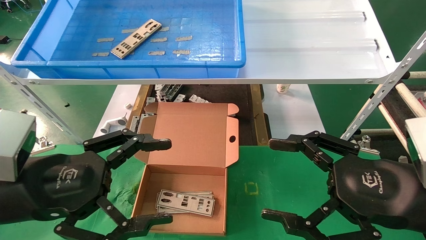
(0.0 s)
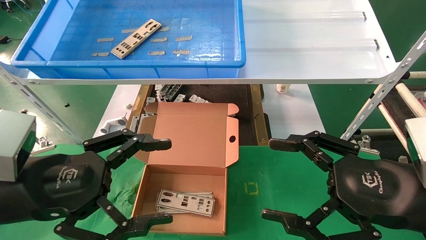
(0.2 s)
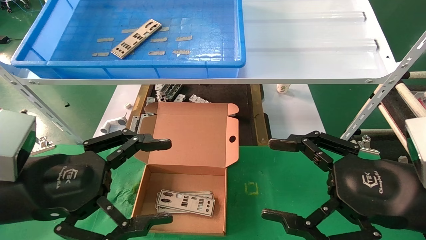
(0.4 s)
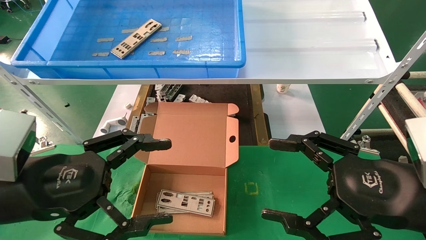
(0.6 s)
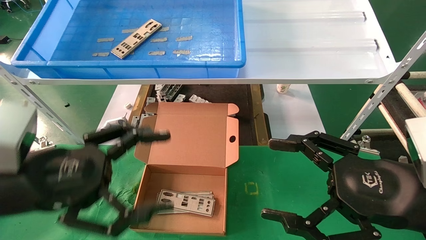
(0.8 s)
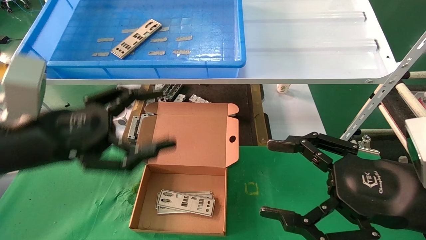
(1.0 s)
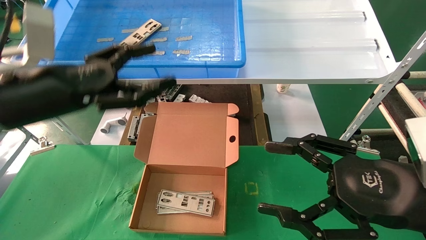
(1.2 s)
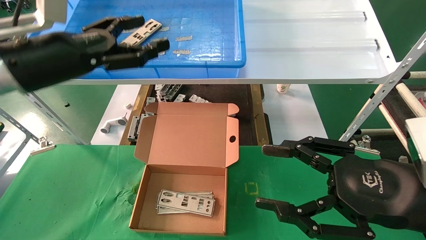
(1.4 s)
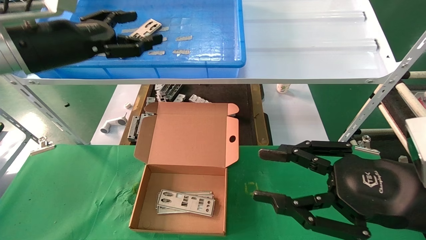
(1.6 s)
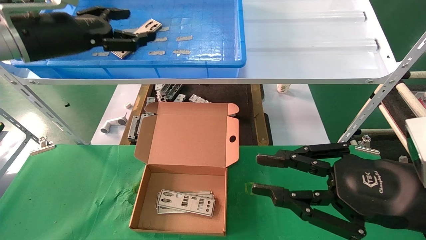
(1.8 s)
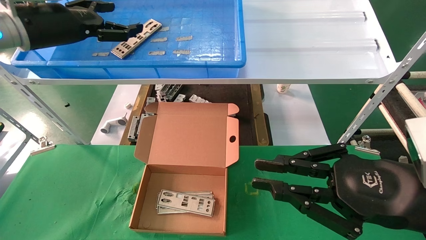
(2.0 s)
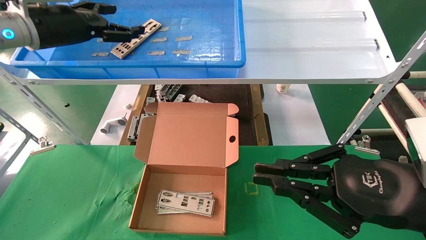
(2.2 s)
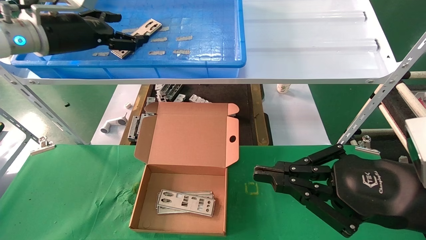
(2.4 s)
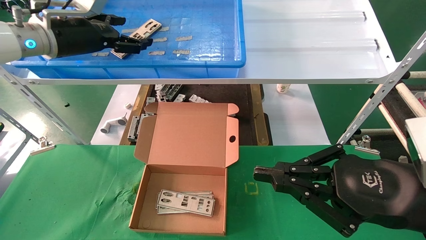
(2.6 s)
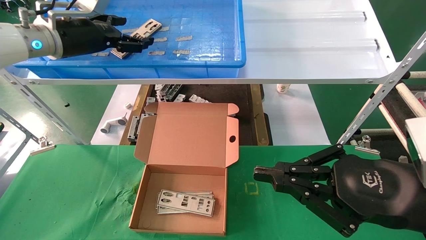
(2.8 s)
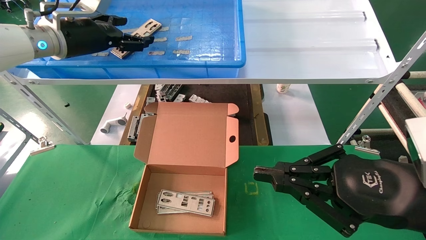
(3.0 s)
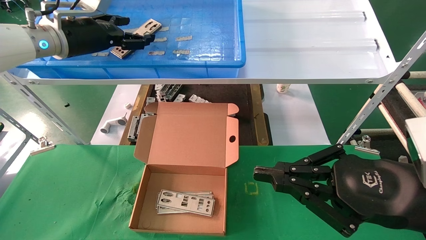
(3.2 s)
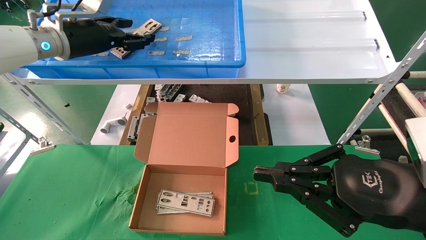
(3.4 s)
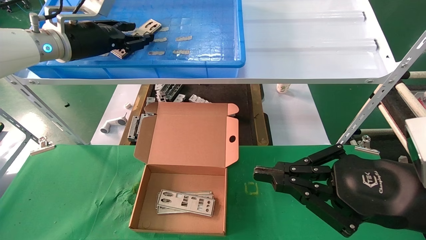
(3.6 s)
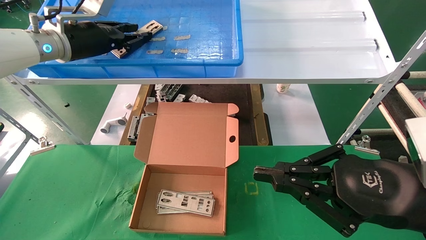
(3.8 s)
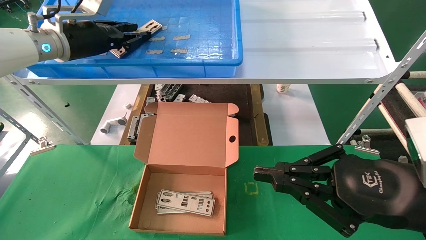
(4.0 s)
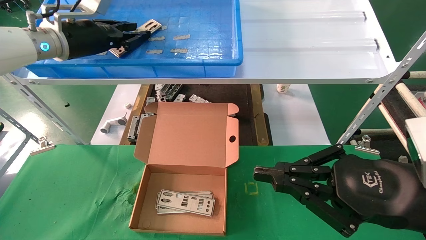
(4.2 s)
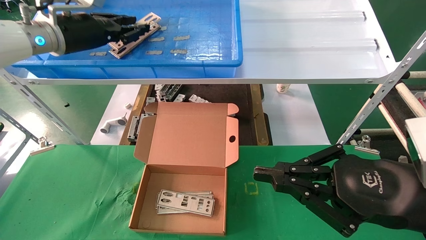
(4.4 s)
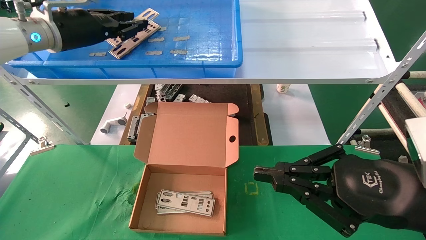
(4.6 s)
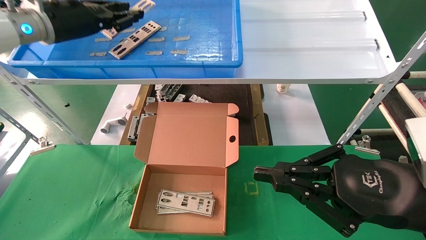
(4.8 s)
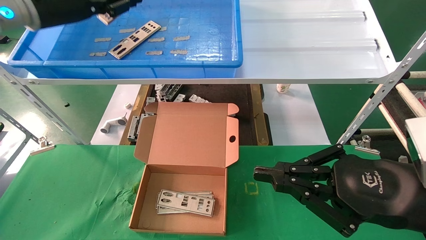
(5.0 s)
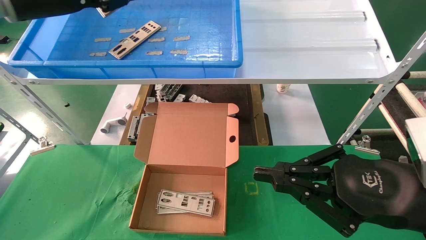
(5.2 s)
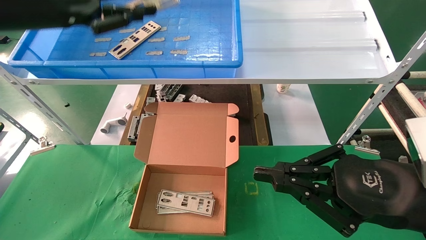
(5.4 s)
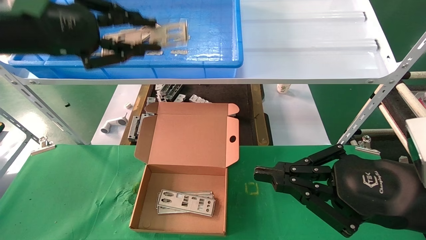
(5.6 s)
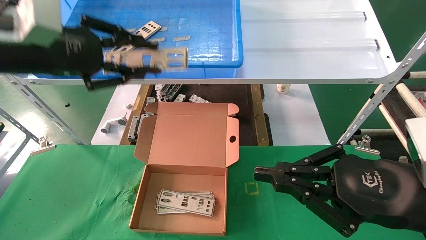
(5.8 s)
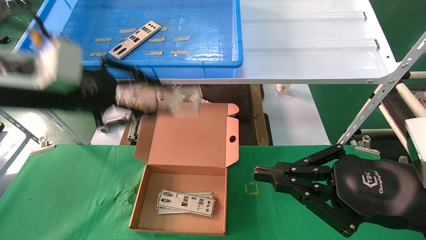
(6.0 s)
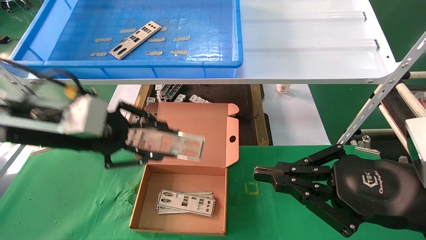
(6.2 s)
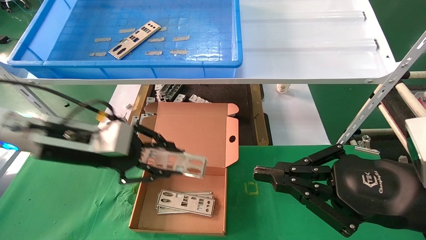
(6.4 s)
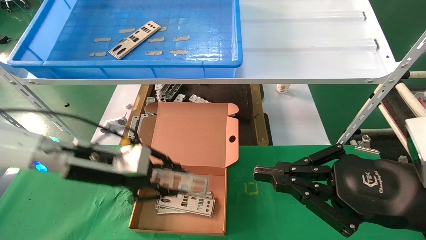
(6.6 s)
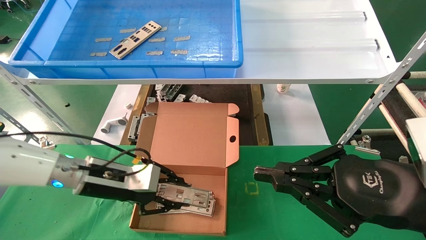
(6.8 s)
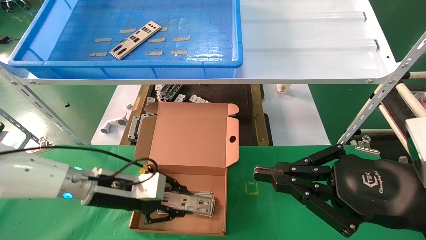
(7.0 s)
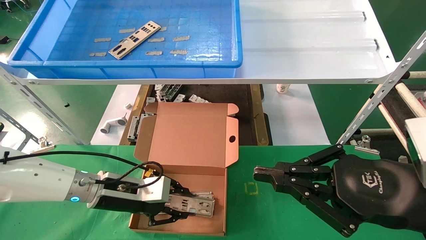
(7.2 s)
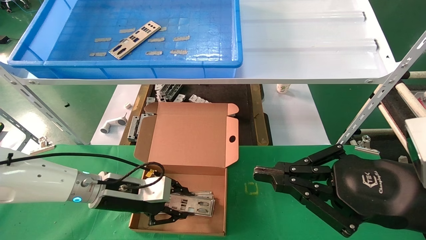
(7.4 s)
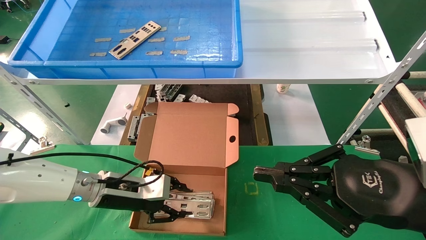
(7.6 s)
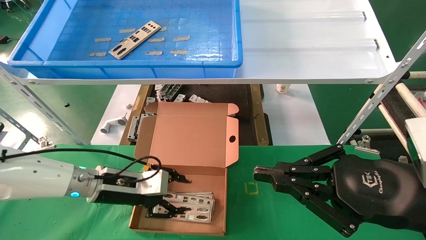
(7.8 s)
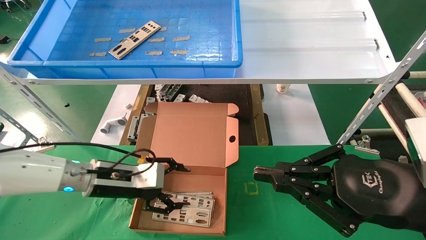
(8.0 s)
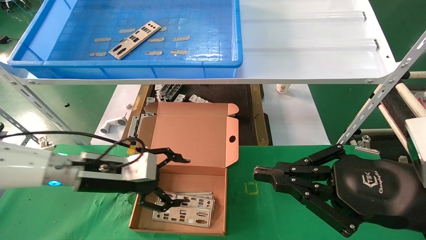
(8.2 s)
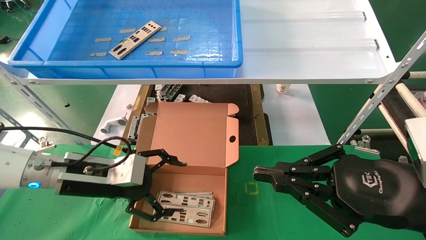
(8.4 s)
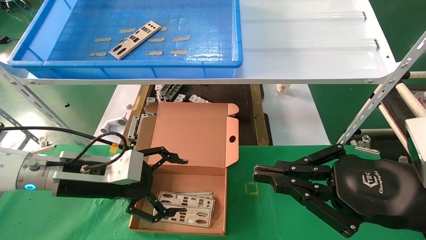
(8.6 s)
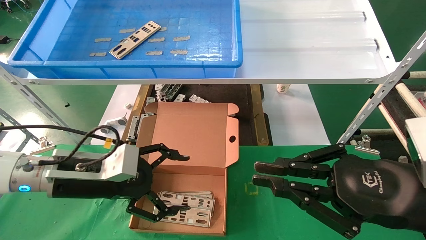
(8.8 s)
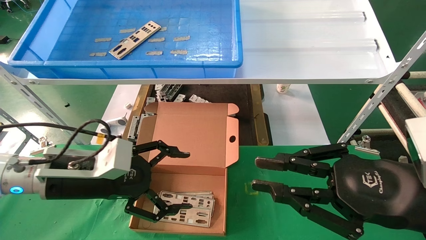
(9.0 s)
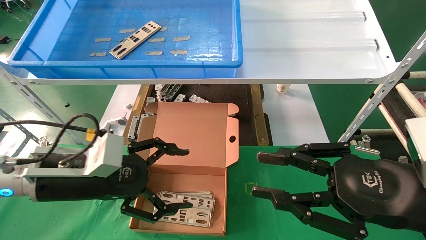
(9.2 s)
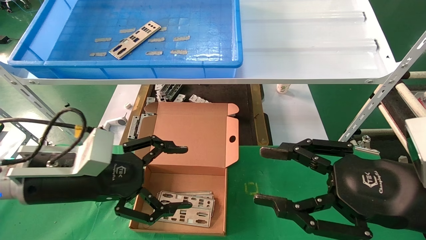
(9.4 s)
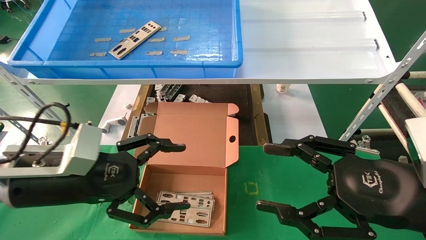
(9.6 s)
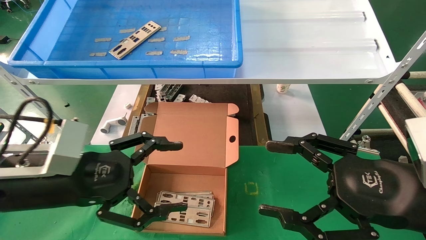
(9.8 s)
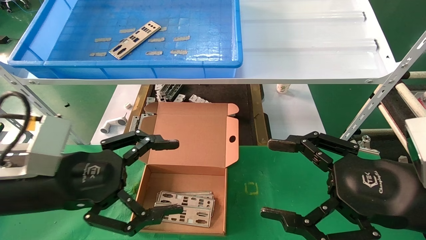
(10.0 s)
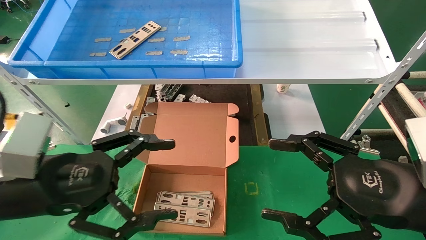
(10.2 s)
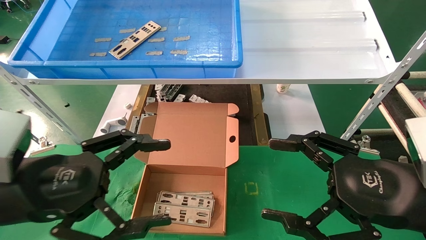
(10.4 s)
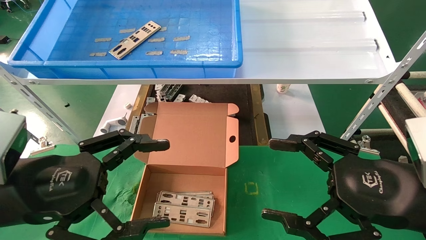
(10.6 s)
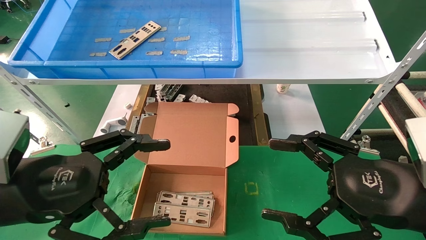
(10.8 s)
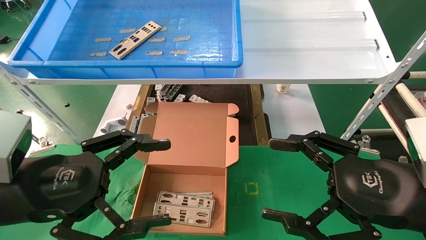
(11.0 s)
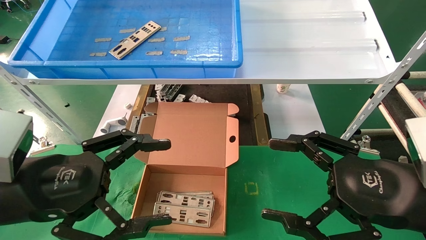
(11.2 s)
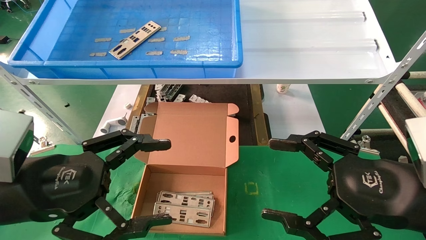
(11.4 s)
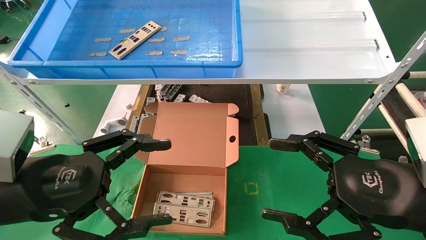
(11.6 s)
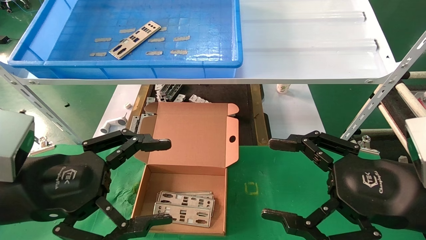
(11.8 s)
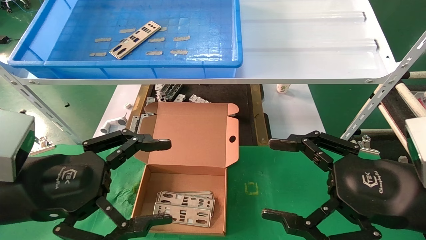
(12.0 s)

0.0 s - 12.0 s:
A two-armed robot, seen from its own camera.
Task of the whole recording: pick up the parts on the tray and put them in the cardboard box.
Step, 1.2 s - 4.4 s: Pick up the IO bracket from the container box.
Step, 4.6 s - 7.6 s: Place the IO bracket into the ingredient slot.
0.0 s - 1.6 s: The right gripper closes up, while the left gripper travels forward and upward by some 20 cm.
1.6 s - 3.0 s: The right gripper closes its fingers. Meanwhile the left gripper is displaced forward by about 10 cm.
3.0 s - 4.4 s: The left gripper closes its fingers.
4.4 s - 6.0 s: The left gripper travels backward and downward by approximately 15 cm.
6.0 s - 7.6 s: The left gripper goes about 25 cm downward.
7.6 s - 9.0 s: The left gripper shifts about 10 cm backward and upward, and opens up.
9.0 s - 10.4 s: The right gripper opens up; the left gripper is displaced backward by about 10 cm.
10.4 s - 12.0 s: Both grippers stay about where they are.

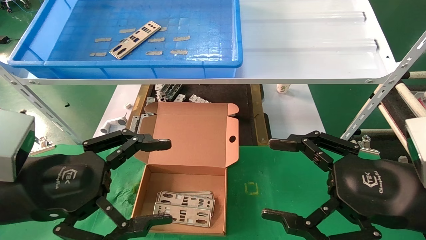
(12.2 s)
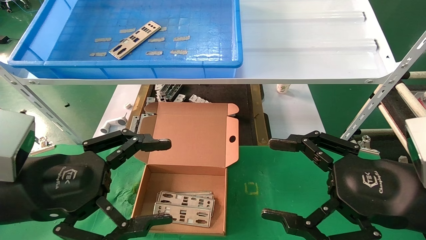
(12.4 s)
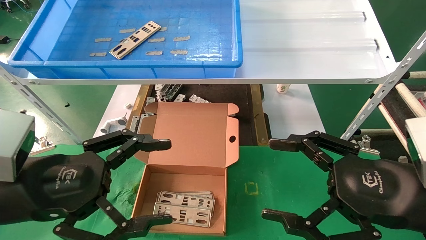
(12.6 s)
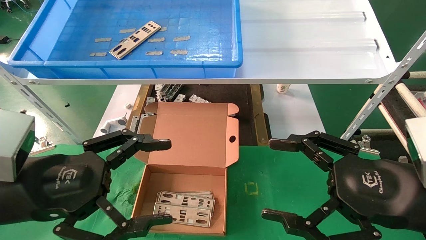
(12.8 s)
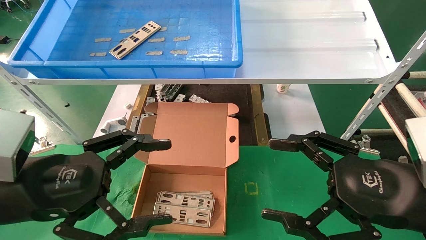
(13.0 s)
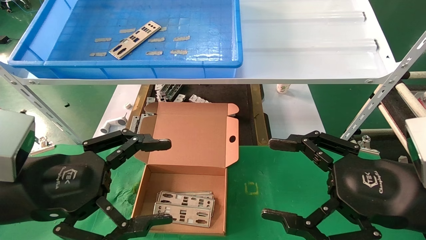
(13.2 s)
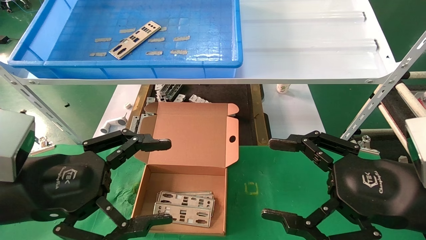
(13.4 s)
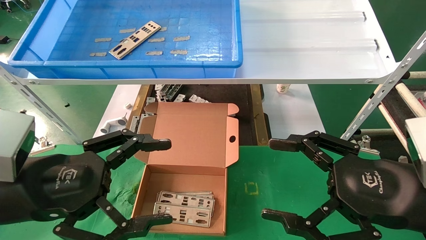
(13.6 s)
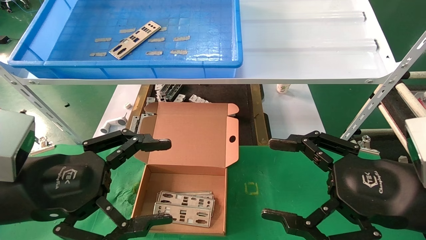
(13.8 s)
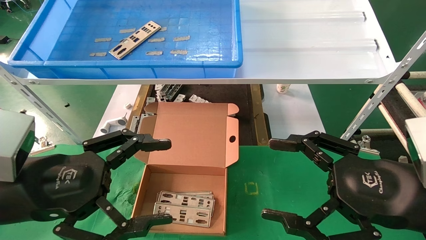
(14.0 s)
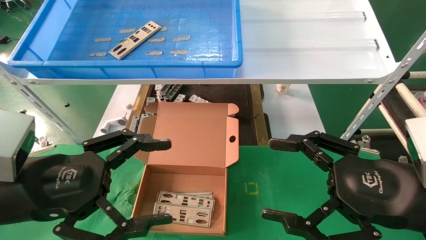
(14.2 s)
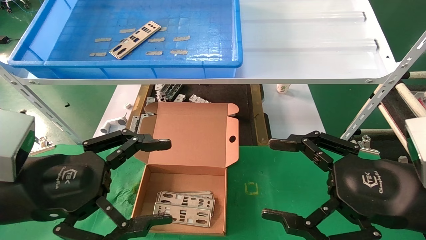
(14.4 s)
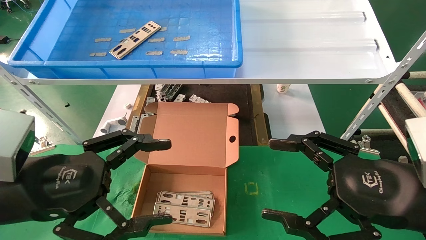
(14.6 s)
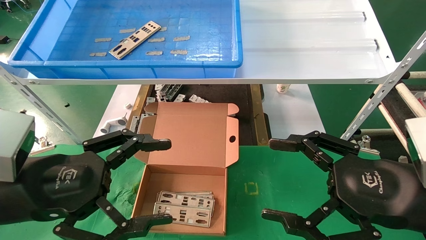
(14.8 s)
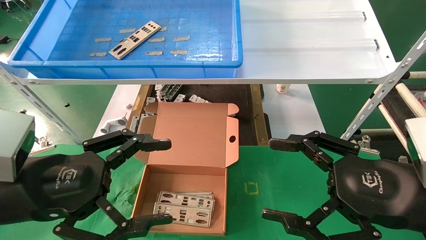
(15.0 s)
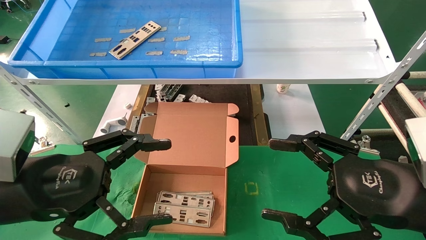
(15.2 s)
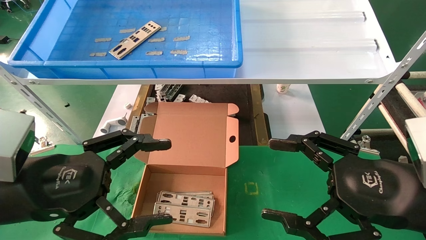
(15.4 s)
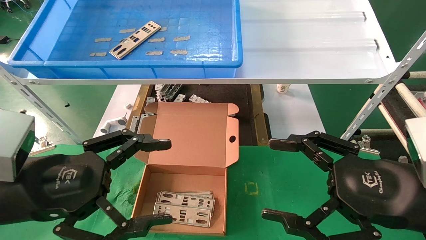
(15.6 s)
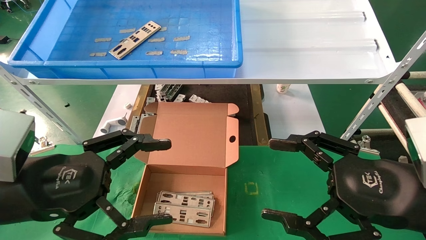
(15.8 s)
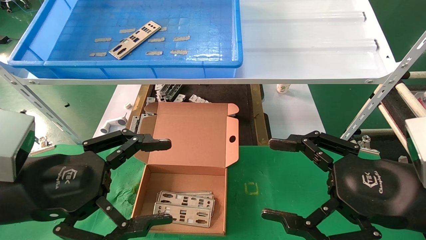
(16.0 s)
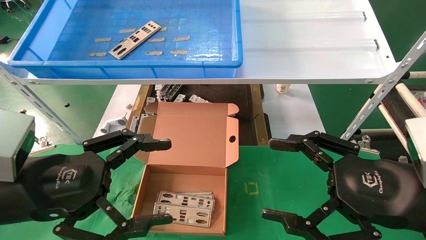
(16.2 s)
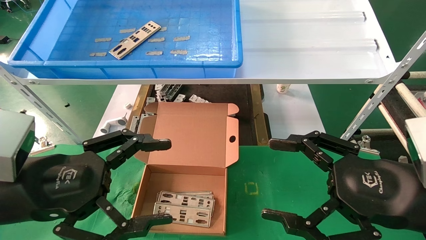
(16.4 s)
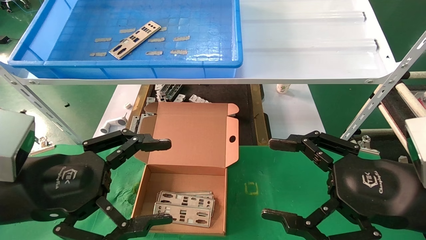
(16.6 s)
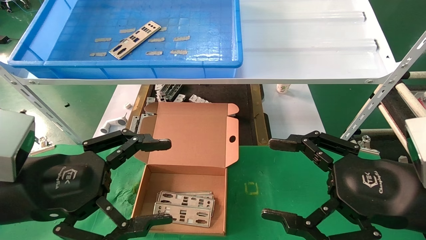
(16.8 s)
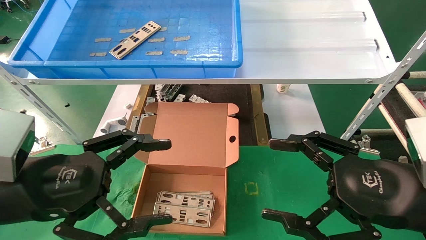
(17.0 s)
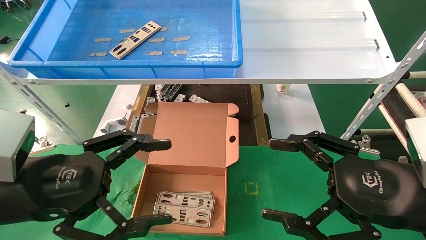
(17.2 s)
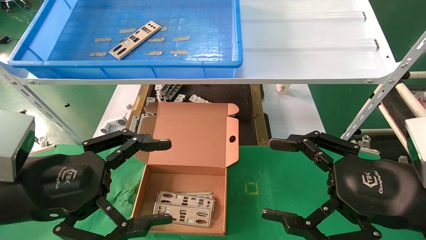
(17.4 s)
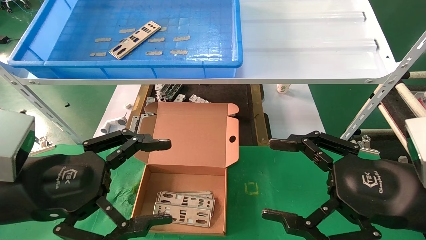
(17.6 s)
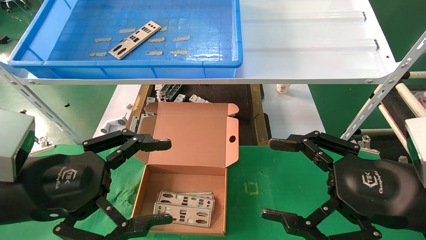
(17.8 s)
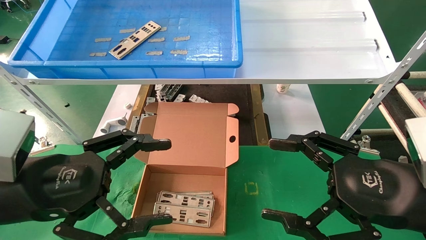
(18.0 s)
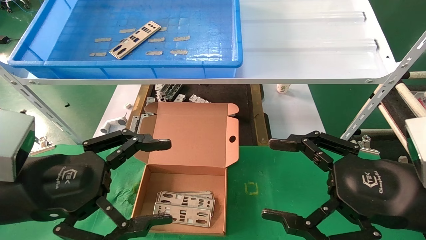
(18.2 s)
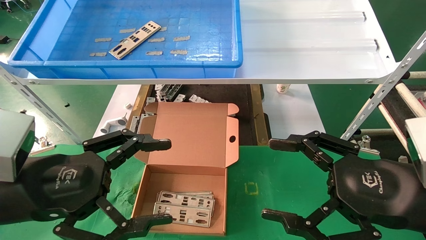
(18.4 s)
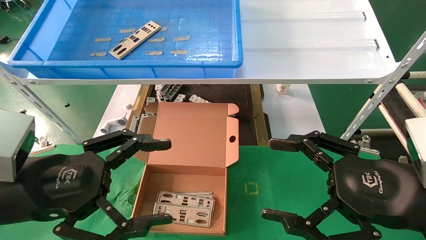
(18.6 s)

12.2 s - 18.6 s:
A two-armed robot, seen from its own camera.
Task of the whole recording: pick up the parts on the tray and put them in the cardboard box.
12.2 s - 18.6 s: Neither gripper changes place.
